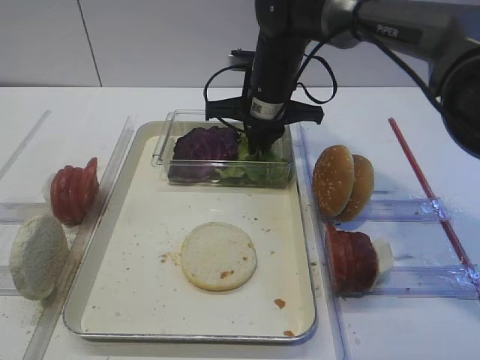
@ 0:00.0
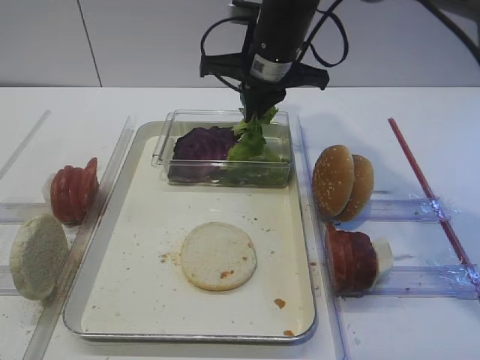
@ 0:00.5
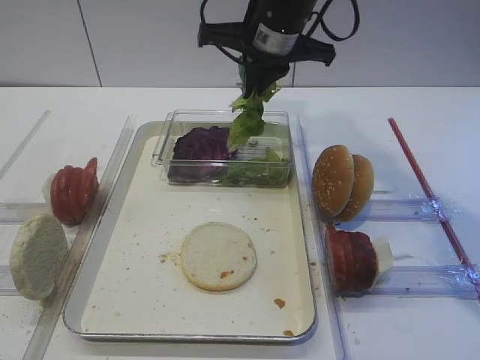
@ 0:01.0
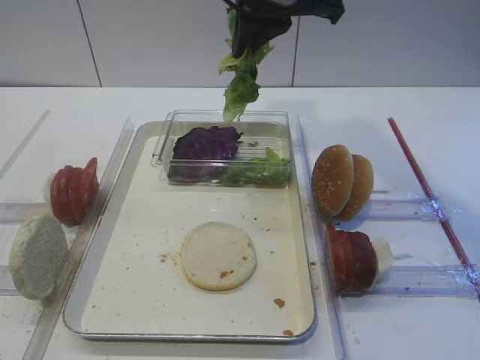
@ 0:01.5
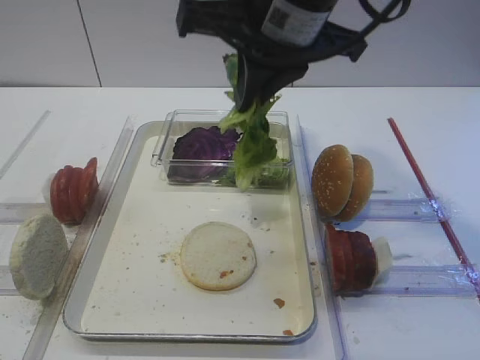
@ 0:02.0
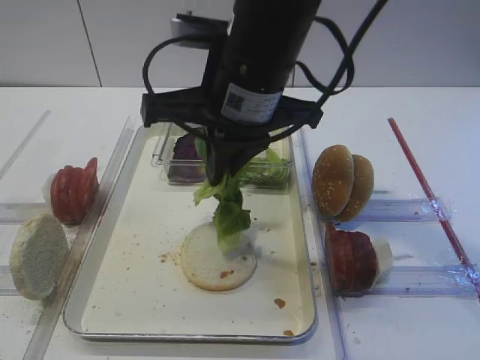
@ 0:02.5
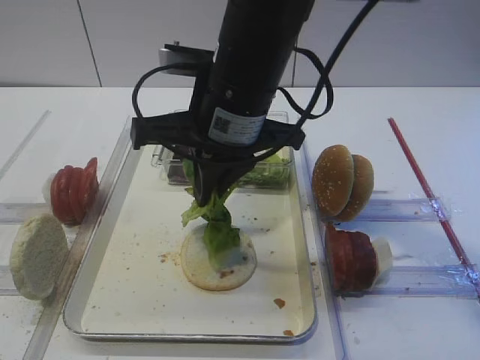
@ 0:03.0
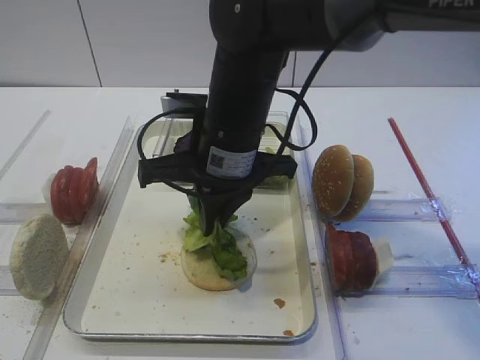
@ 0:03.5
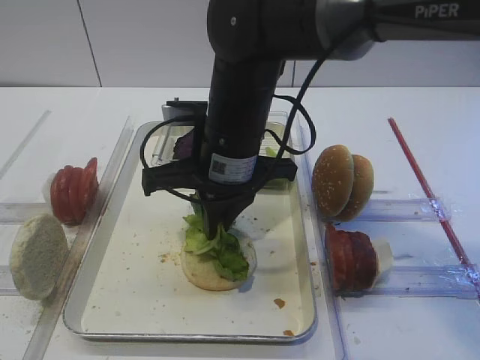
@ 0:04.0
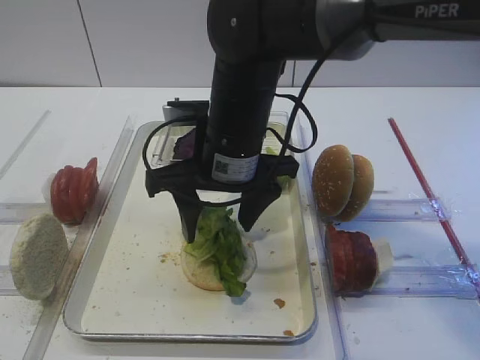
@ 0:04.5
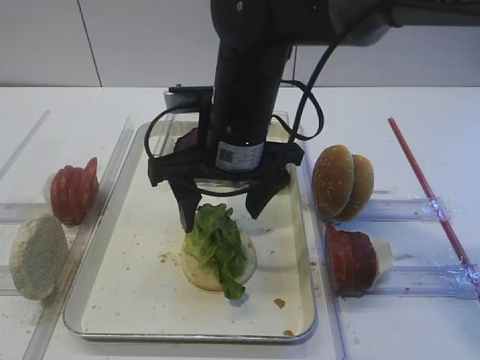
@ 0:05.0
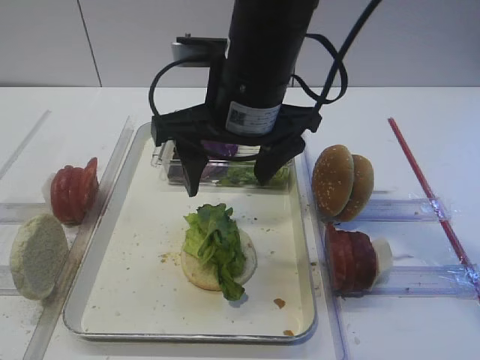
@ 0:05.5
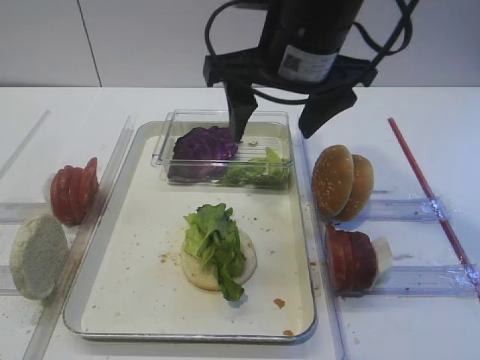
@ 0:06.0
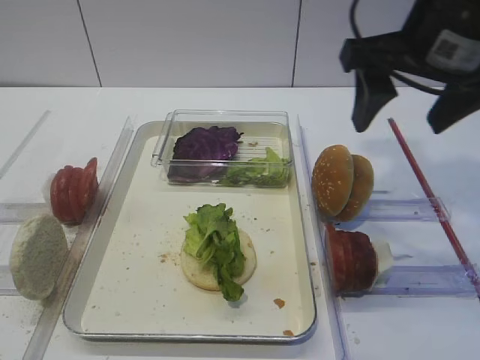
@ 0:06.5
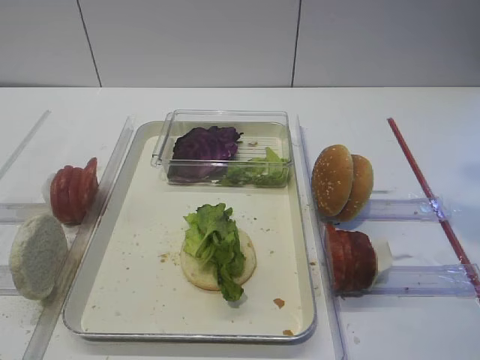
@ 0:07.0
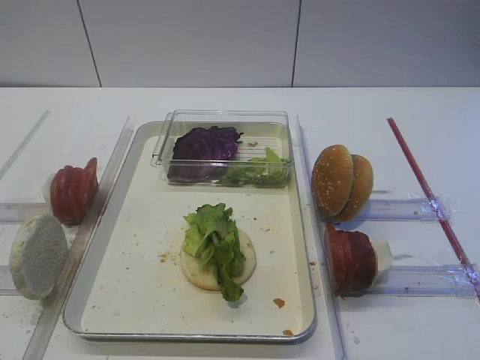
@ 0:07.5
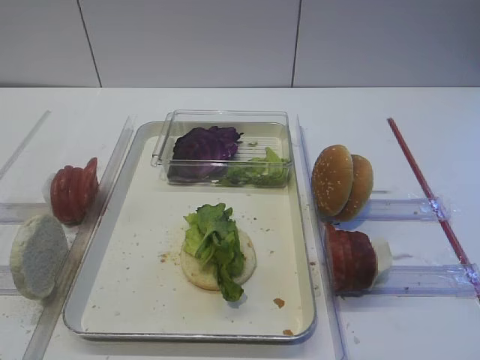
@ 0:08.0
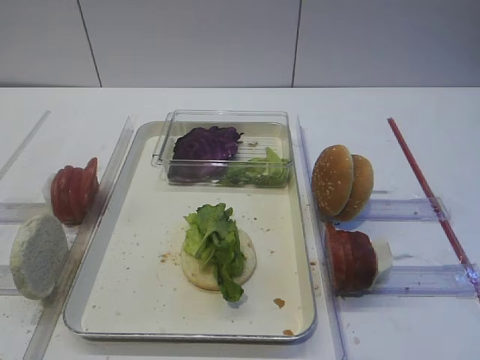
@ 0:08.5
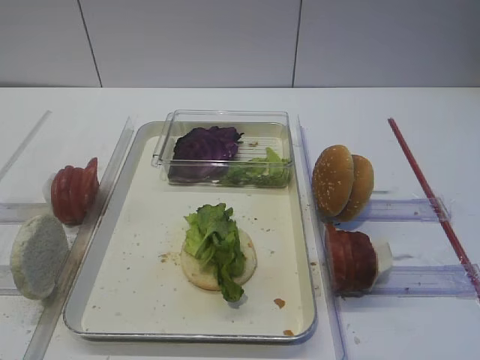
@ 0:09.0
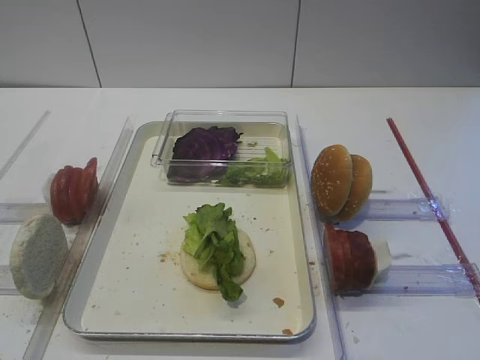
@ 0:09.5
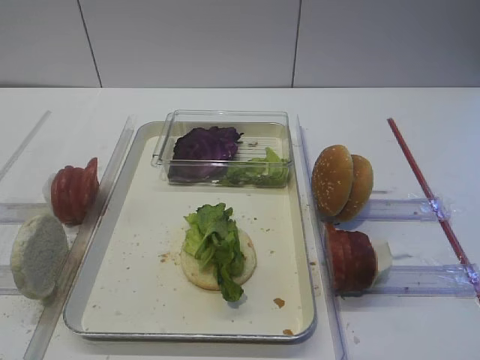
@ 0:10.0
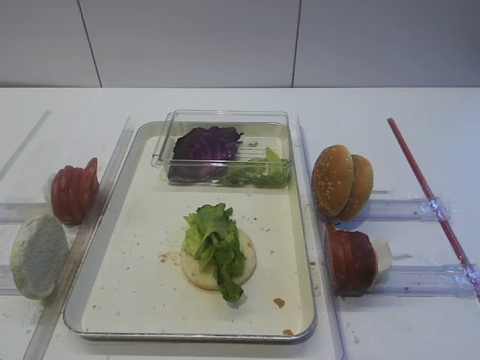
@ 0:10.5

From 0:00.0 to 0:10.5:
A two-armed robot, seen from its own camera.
Step, from 0:01.0 to 0:04.5: Place the lettuce leaf on the bread slice with the right gripper.
From 0:00.0 to 0:02.0: The right gripper is displaced upward and backward by roughly 20 cm.
From 0:02.0 to 0:04.0: The right gripper heads downward and to the left, covering about 15 cm.
From 0:04.0 to 0:06.5: The right gripper travels to the right and upward by about 20 cm, and opens its fingers.
From 0:06.5 to 0:08.5: The right gripper goes roughly 25 cm backward and to the right.

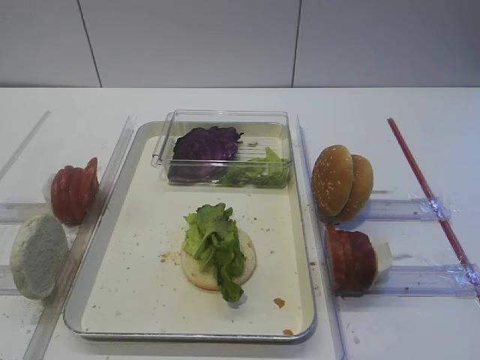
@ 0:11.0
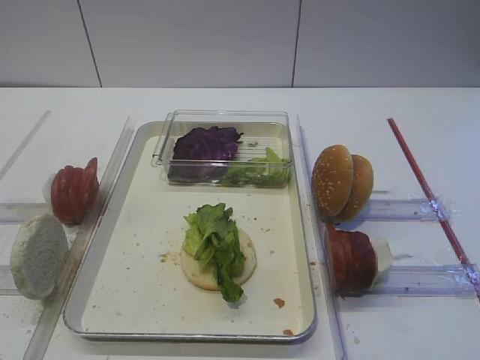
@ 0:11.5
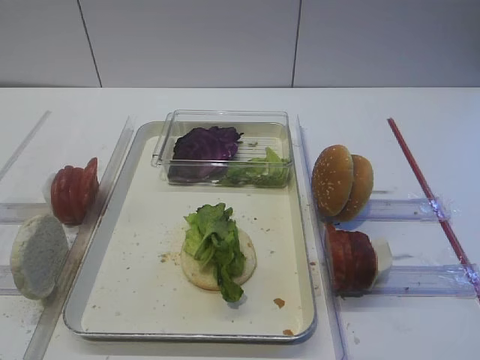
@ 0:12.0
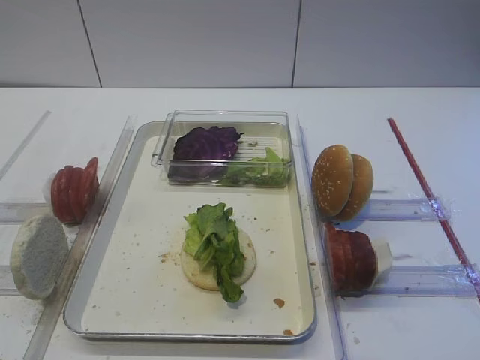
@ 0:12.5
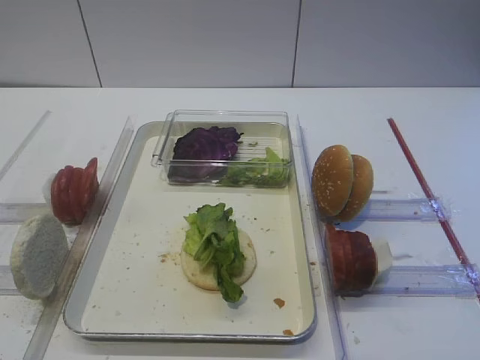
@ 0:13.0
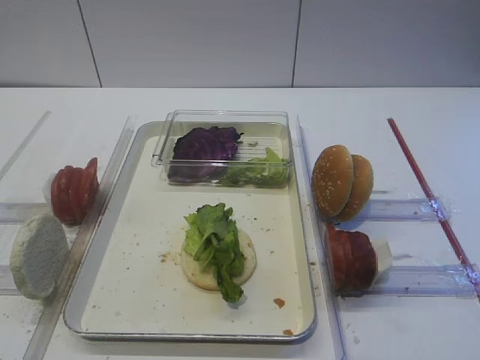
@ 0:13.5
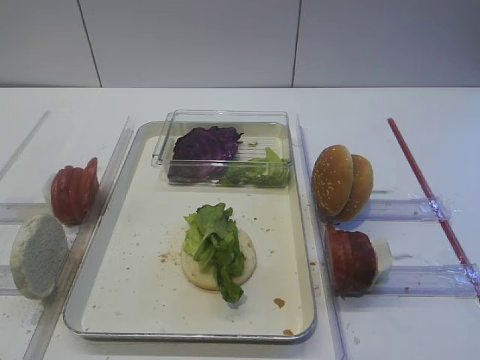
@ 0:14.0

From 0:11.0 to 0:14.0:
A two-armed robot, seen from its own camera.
From 0:11.0 to 0:14.0: Neither gripper changes place.

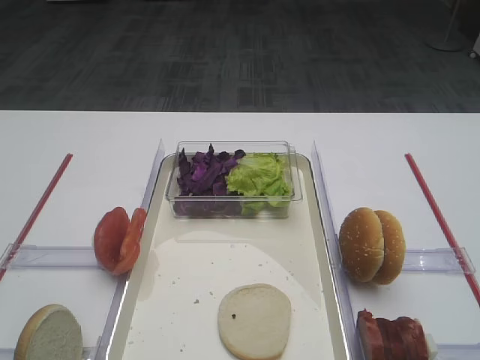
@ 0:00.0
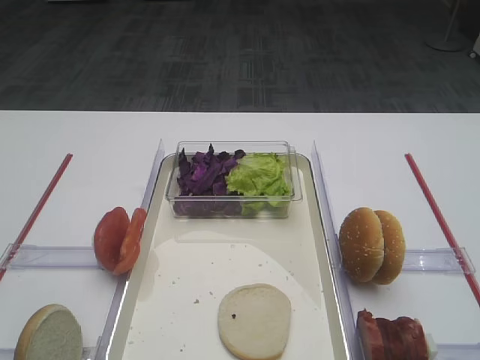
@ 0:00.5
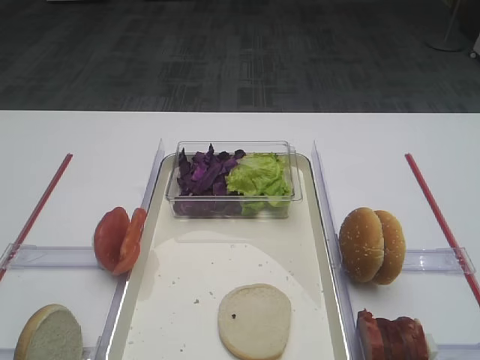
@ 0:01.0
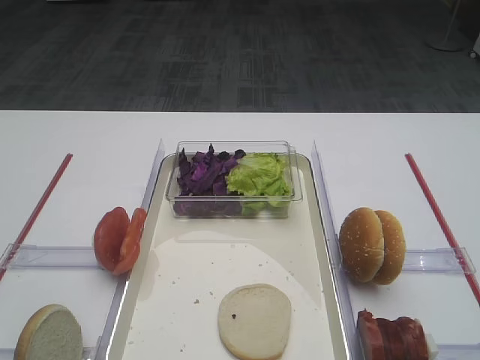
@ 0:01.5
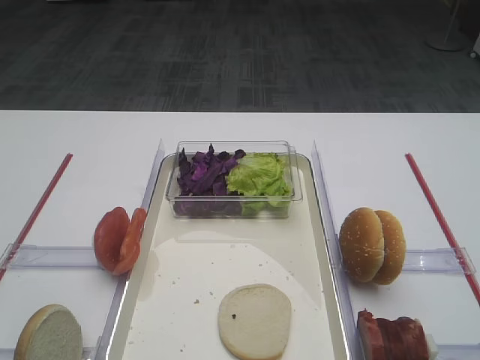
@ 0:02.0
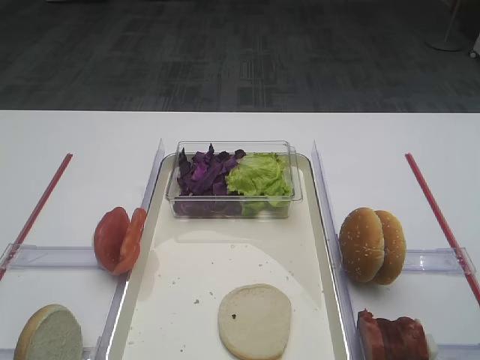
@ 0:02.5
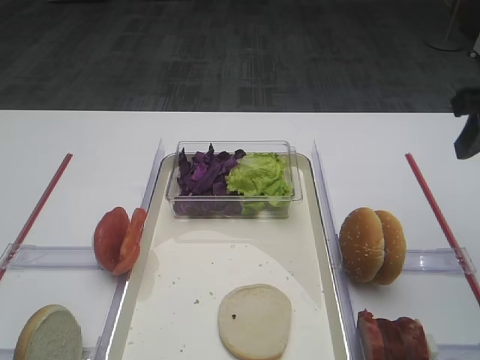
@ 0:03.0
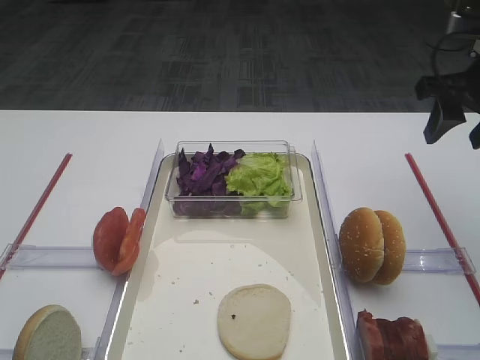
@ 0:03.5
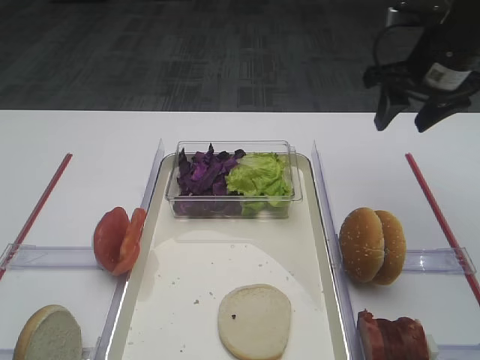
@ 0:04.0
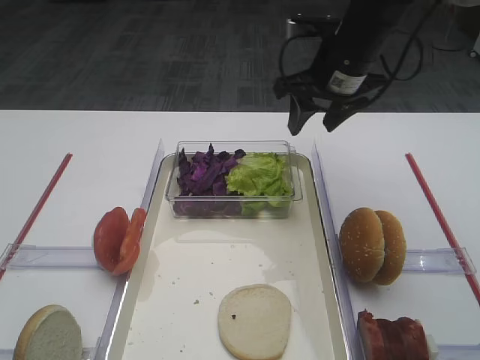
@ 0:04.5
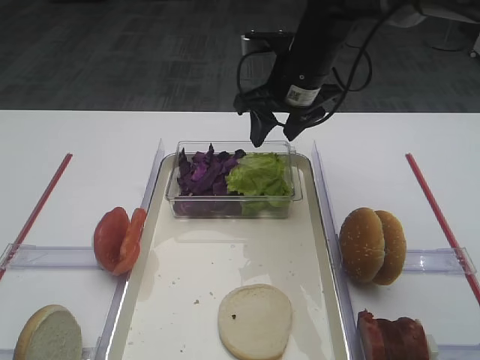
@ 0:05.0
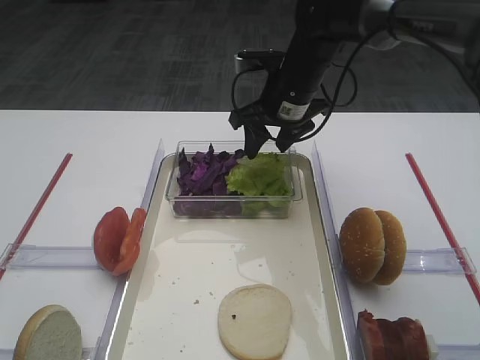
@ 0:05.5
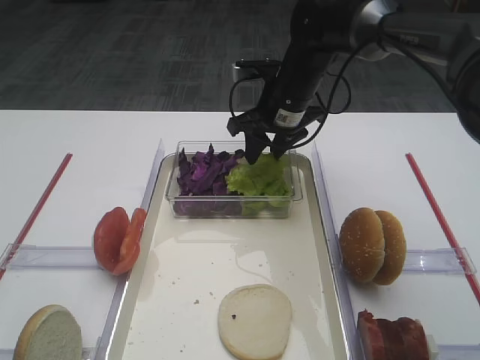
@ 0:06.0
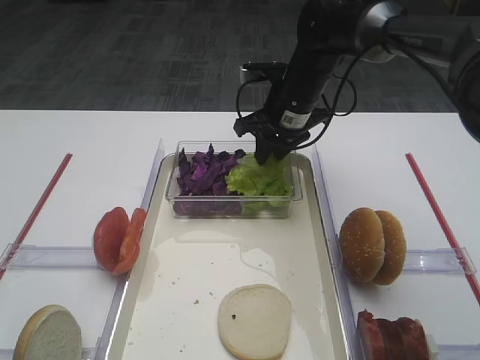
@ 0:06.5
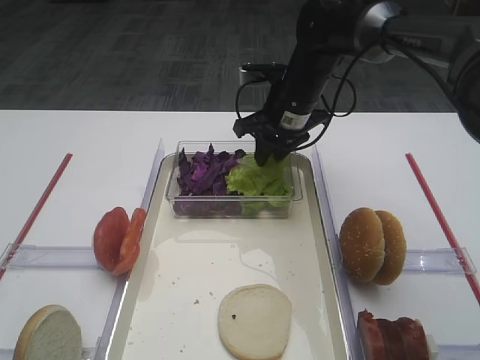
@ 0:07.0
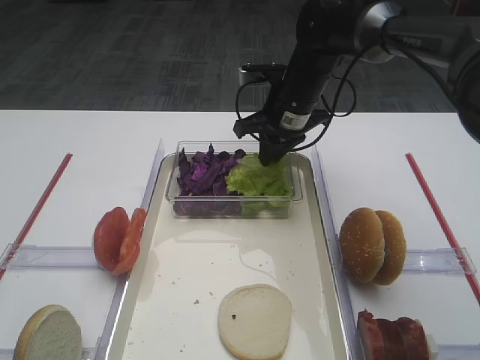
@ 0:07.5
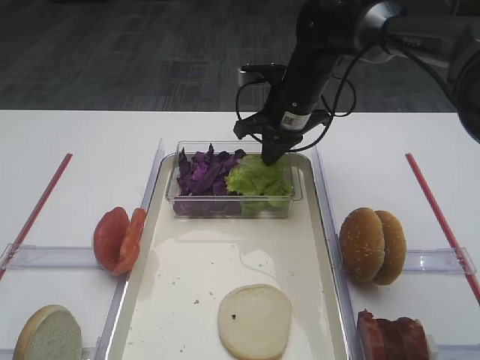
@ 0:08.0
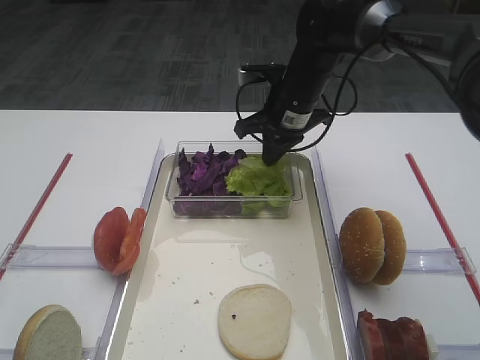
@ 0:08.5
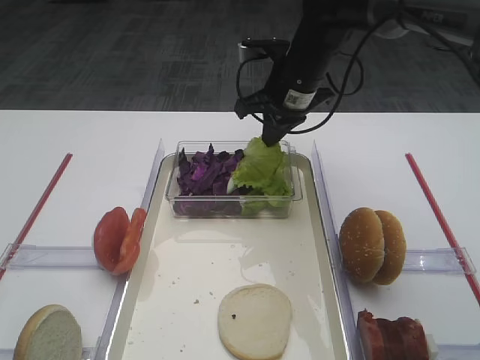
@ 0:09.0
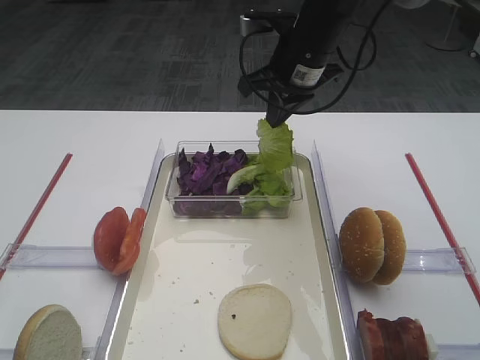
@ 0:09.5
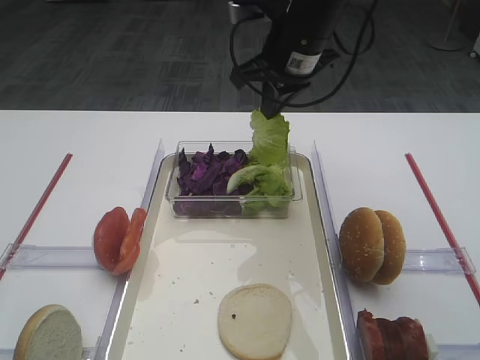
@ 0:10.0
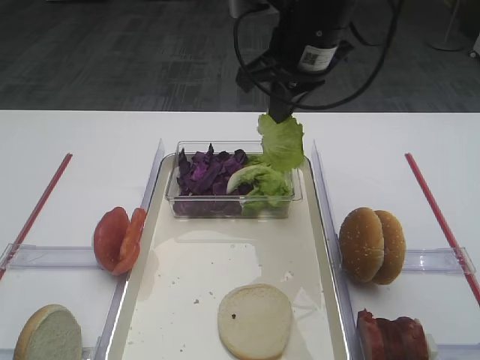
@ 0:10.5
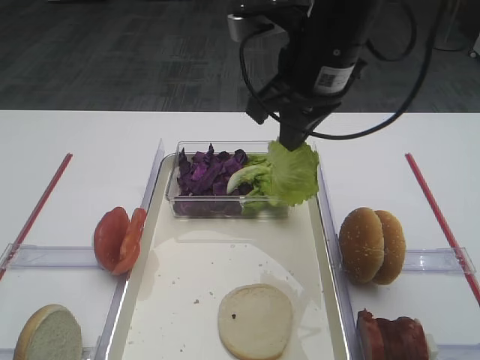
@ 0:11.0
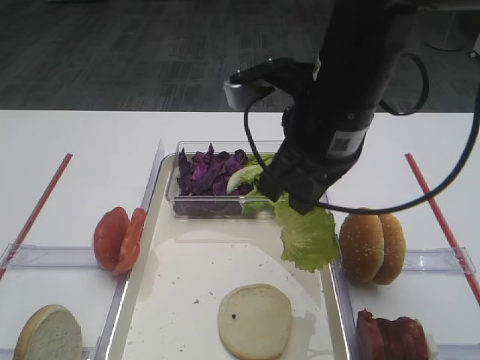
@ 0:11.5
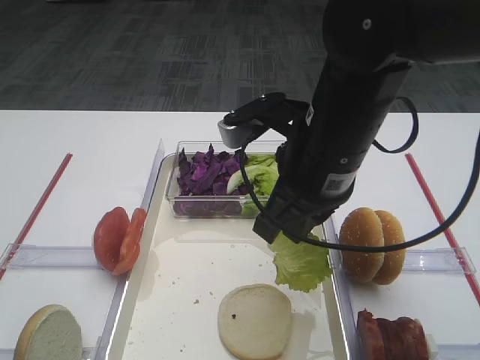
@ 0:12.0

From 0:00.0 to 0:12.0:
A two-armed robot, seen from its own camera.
Step, from 0:00.0 to 0:11.0: Pick up the lettuce leaf with the right gripper.
From 0:02.0 to 0:04.0: The right gripper goes some 35 cm forward.
From 0:04.0 to 0:06.0: The right gripper moves to the left and downward, roughly 20 cm.
From 0:06.0 to 0:08.0: The right gripper closes up.
From 0:08.0 to 0:10.0: The right gripper shifts some 10 cm upward.
From 0:10.0 to 0:12.0: The right gripper travels backward by about 15 cm.
